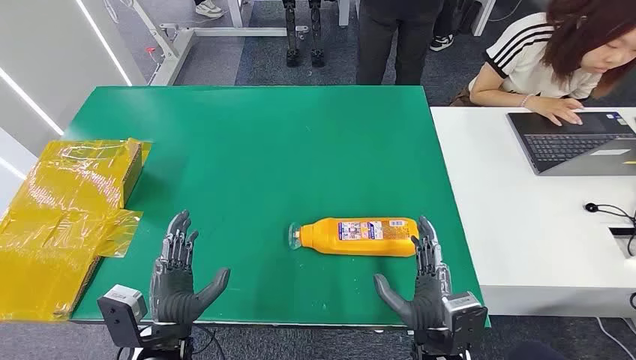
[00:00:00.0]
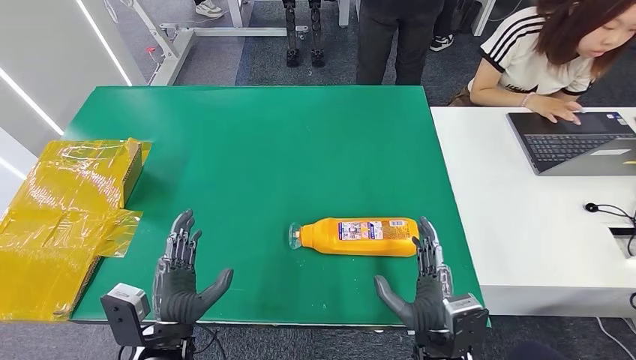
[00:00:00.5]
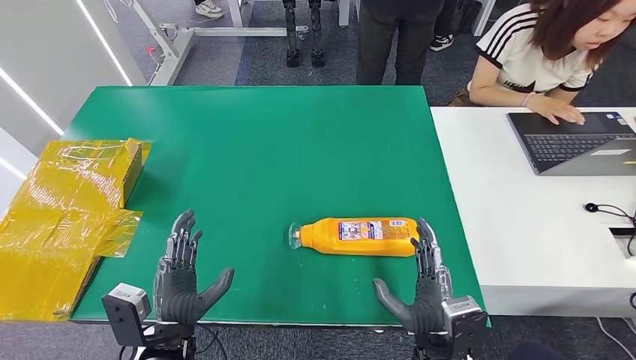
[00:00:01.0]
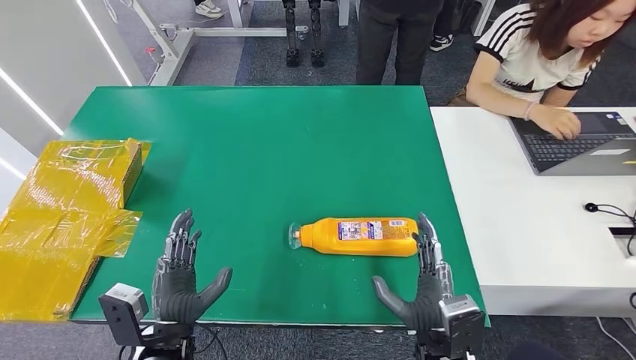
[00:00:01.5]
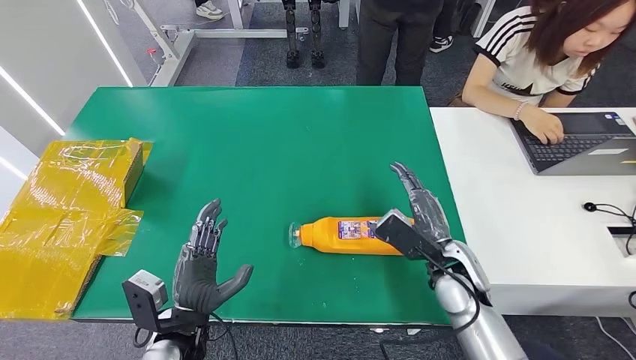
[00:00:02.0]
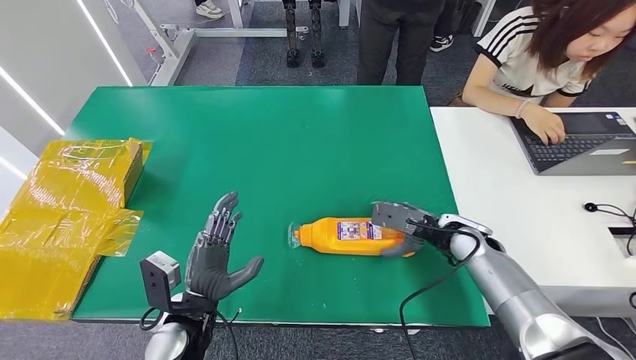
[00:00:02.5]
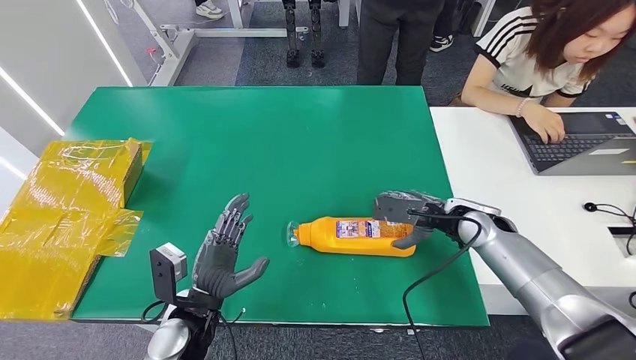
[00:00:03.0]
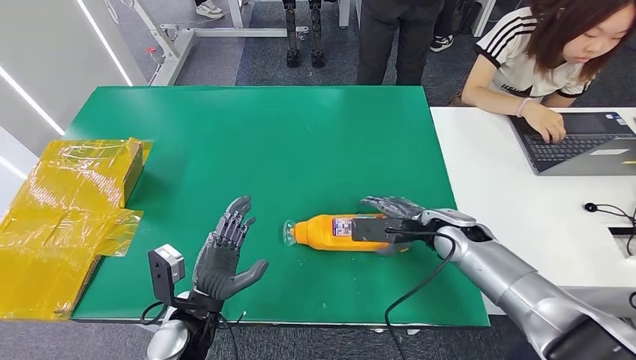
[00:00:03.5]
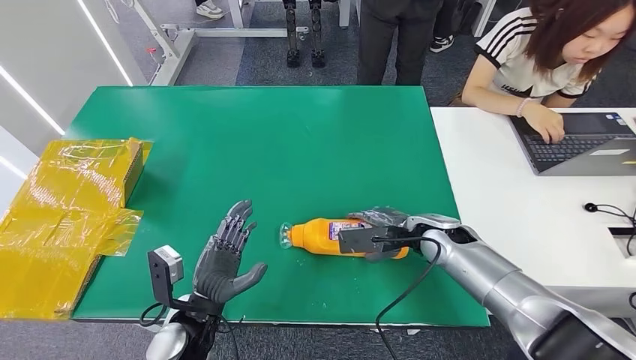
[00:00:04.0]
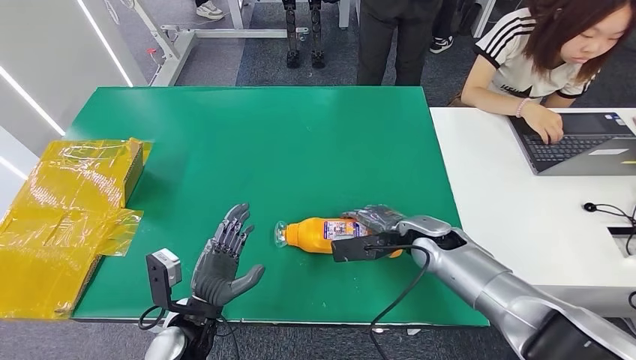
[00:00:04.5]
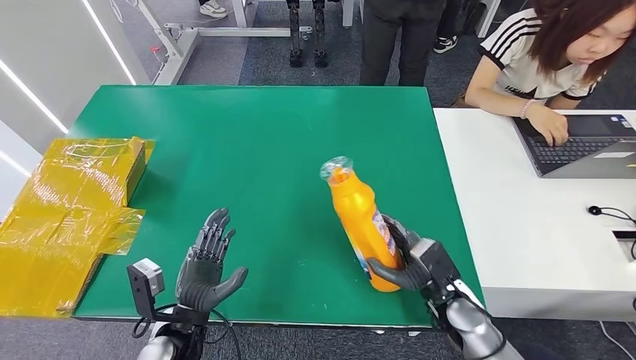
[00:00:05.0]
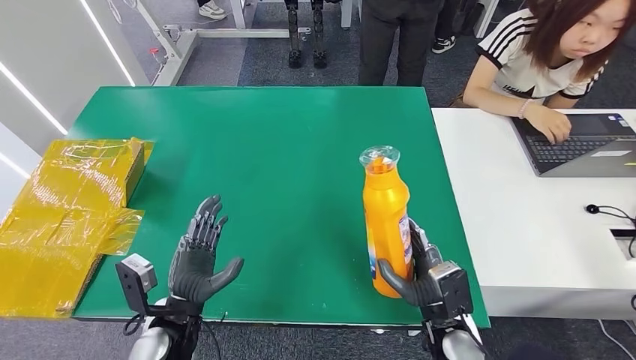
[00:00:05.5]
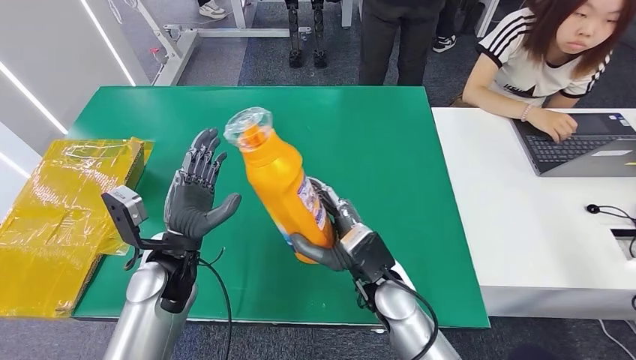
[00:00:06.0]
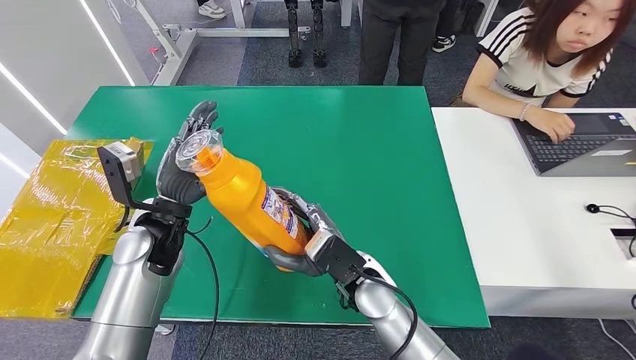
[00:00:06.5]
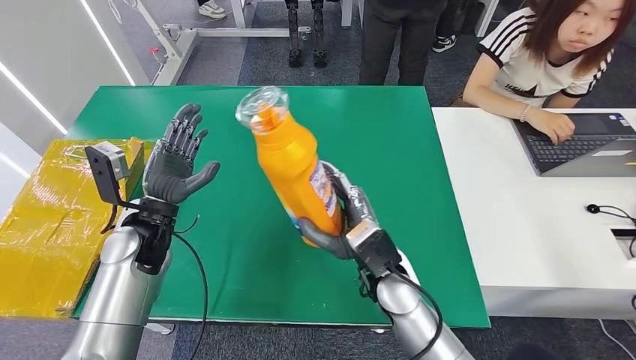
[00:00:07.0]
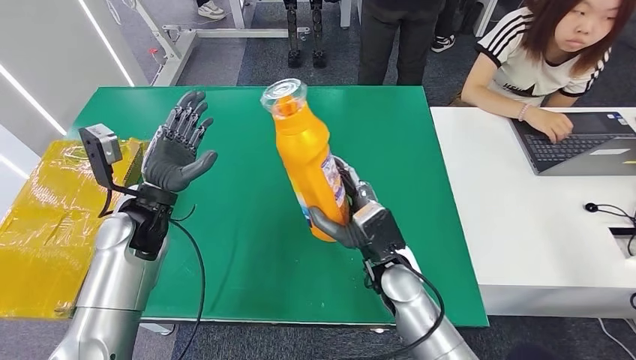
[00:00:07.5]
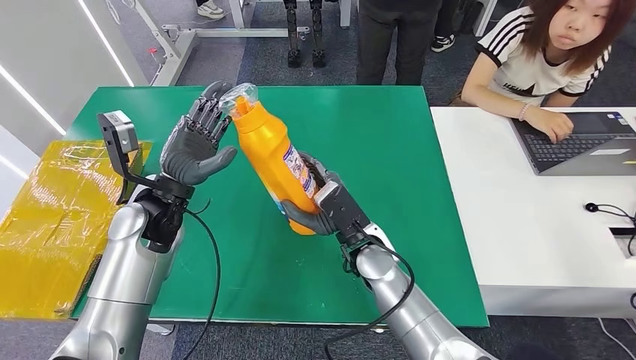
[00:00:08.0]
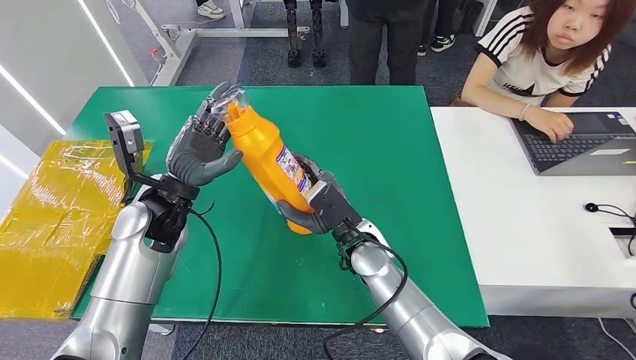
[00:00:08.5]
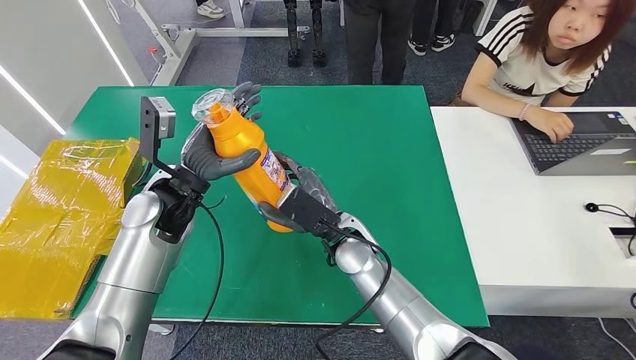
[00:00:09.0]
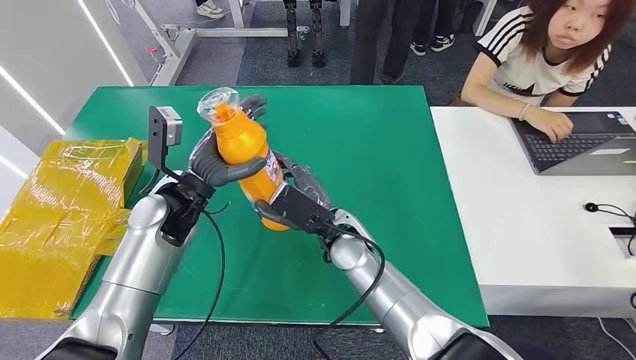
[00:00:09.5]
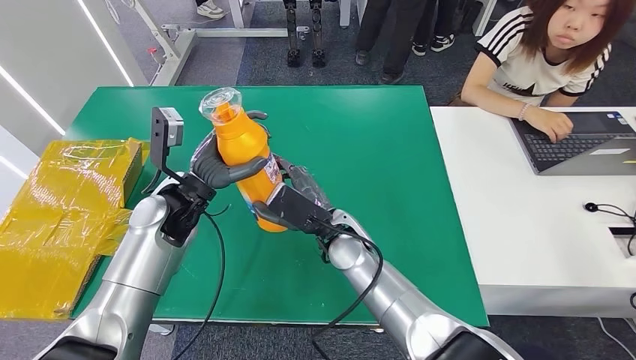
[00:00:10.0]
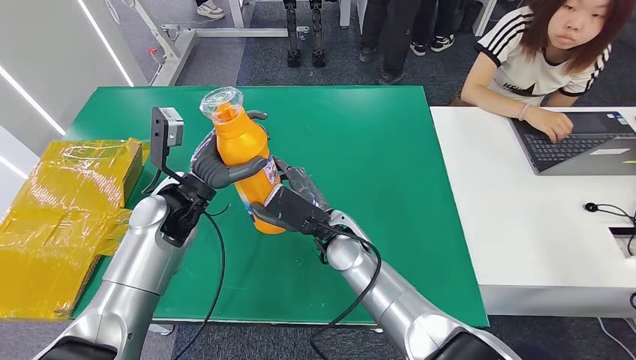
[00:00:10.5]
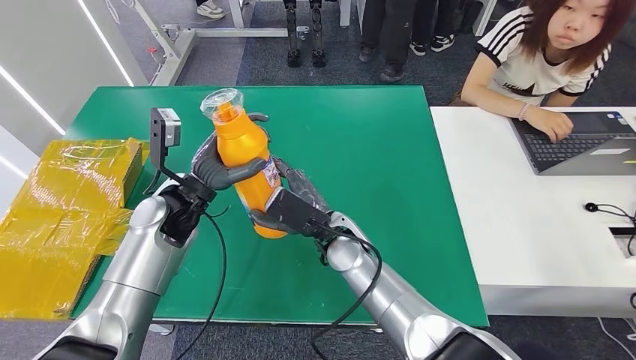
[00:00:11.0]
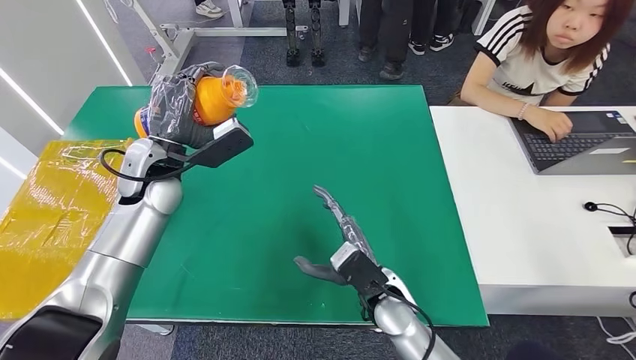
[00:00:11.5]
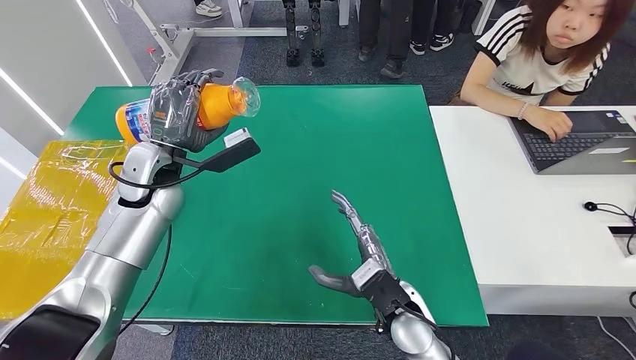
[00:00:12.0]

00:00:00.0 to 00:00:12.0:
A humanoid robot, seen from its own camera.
Step, 00:00:00.0 to 00:00:05.5: Pick up the bottle from the table.
00:00:02.0 to 00:00:04.0: The right hand is displaced forward by approximately 5 cm.
00:00:08.0 to 00:00:10.0: The hands move only a little.

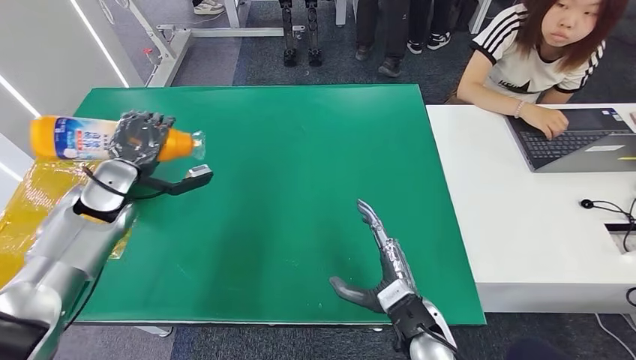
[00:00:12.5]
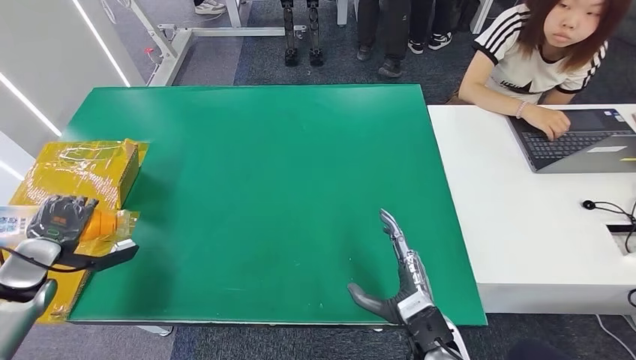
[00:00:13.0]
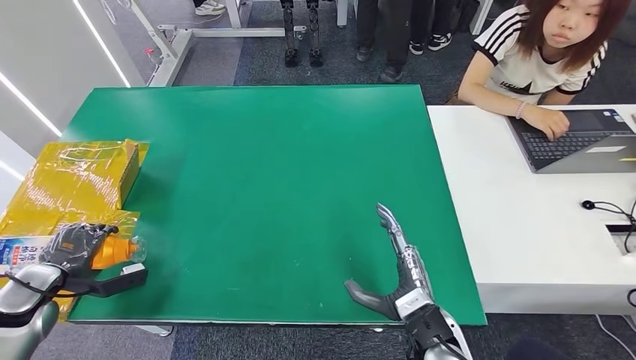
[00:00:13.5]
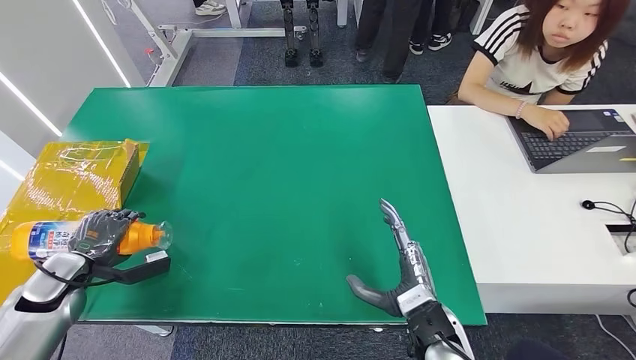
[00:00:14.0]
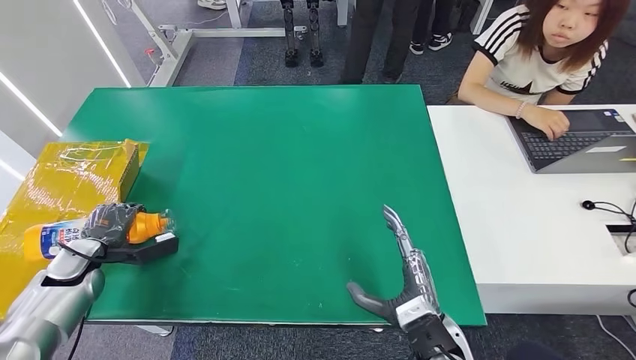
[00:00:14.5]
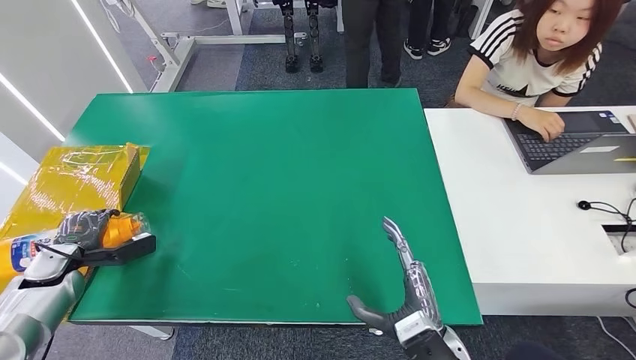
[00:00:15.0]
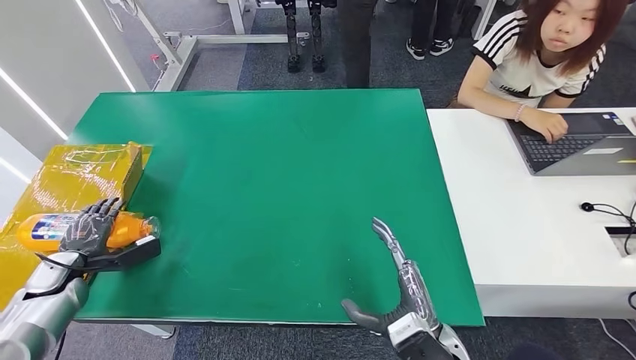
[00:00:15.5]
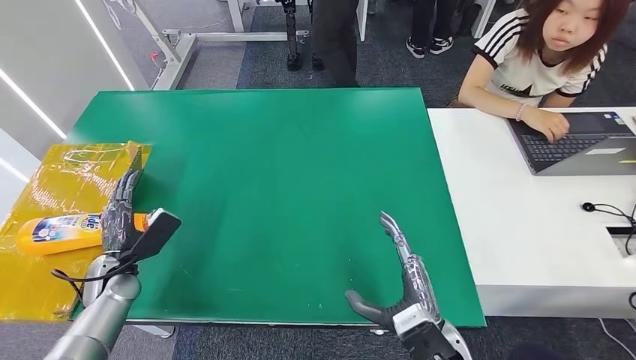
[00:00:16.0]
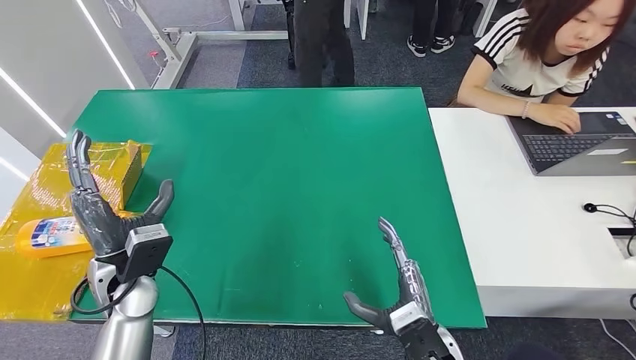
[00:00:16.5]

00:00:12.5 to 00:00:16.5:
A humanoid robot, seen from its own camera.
Step, 00:00:12.5 to 00:00:16.5: Turn the bottle to the front side.
00:00:12.5 to 00:00:14.5: The left hand shifts about 20 cm downward, to the left and backward.
